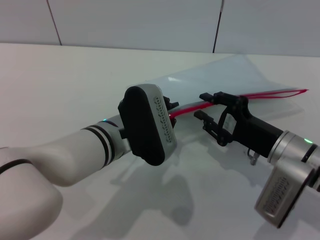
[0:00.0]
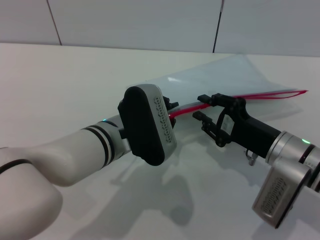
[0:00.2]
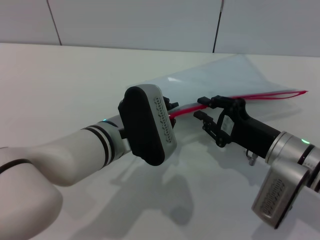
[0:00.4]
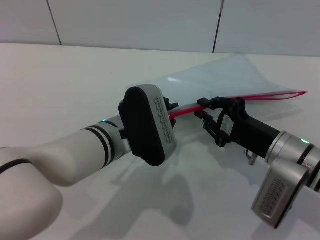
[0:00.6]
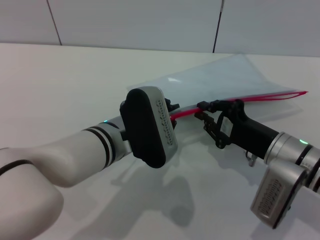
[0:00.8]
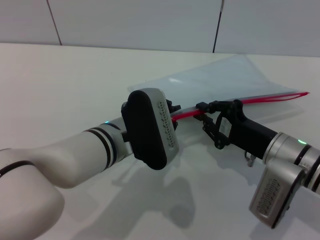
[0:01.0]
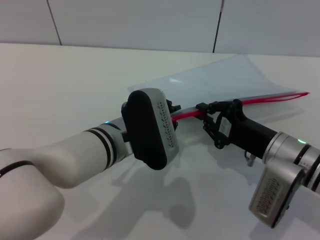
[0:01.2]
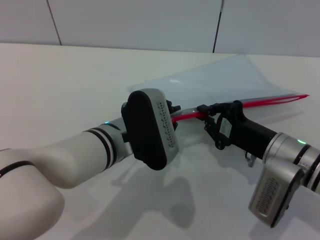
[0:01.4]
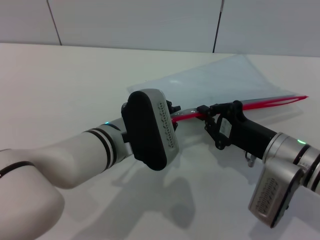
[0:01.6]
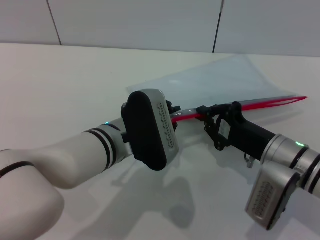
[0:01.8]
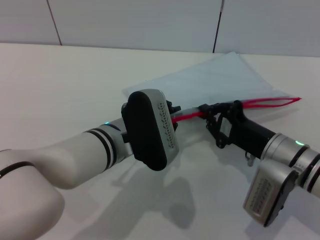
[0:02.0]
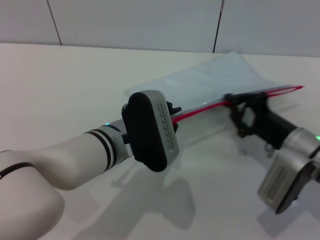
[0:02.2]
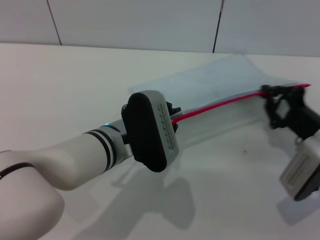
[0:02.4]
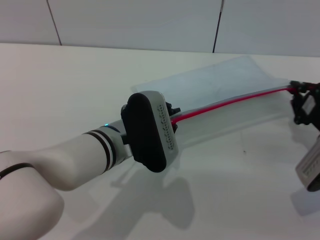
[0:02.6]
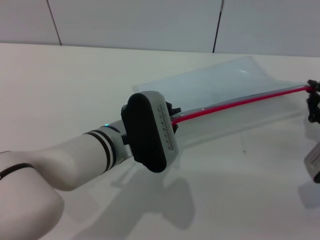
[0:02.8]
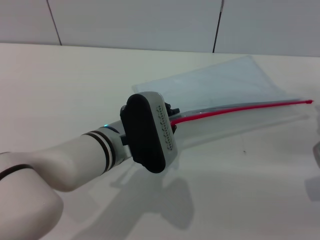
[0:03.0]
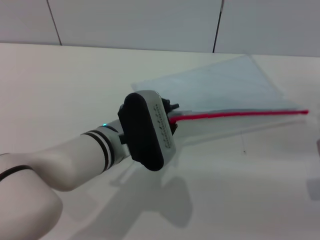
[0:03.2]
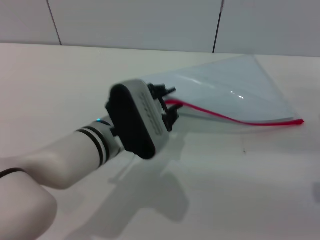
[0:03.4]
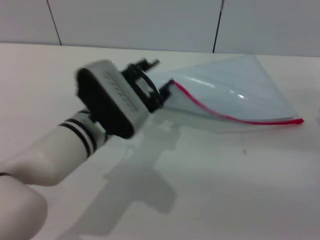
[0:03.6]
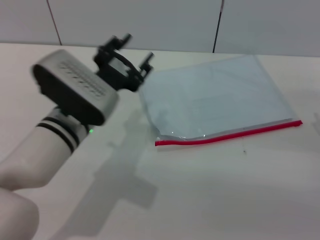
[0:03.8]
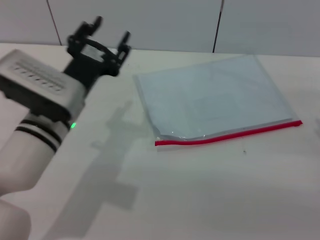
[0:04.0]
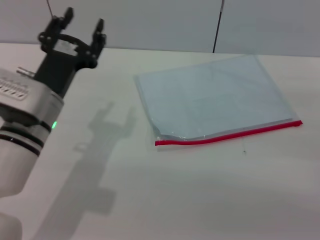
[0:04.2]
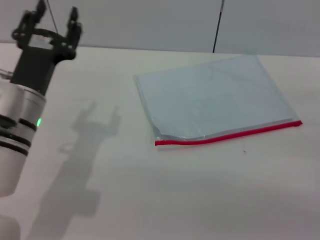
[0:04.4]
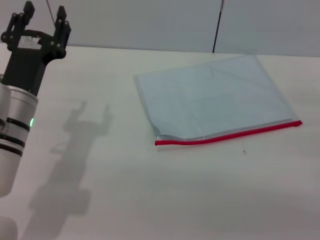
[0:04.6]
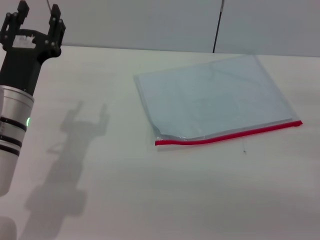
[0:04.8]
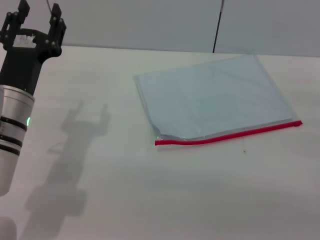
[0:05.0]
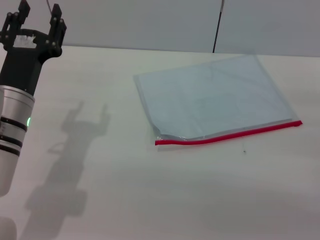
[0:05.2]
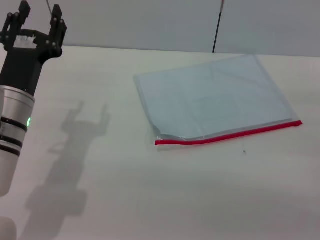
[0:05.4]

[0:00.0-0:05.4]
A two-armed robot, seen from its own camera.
Step, 0:00.0 to 0:02.8: Pulling up the zipper on the transparent plastic bag with the right gripper to close it.
Step, 0:03.0 to 0:04.0: Place the transparent plastic bag.
0:00.0 to 0:01.4: The right gripper closes its fingers.
0:01.4 to 0:02.8: The right gripper goes about 10 cm to the right.
0:02.8 to 0:04.0: The left gripper moves to the left, some 5 cm, and opens its fingers. Meanwhile the right gripper changes place by approximately 5 cm, and opens.
0:04.0 to 0:05.4: The left gripper is displaced to the left by about 5 cm.

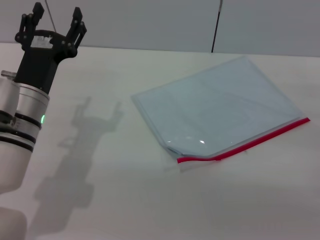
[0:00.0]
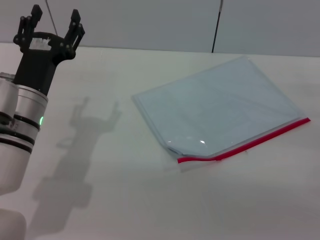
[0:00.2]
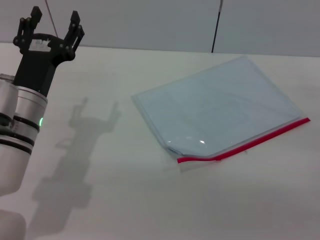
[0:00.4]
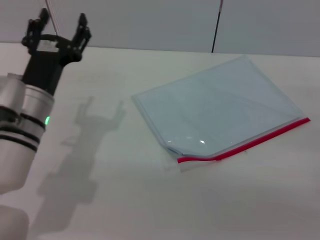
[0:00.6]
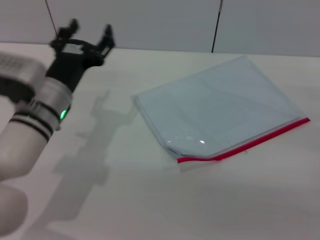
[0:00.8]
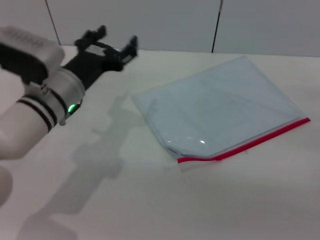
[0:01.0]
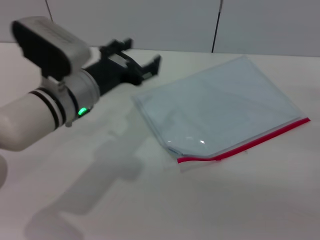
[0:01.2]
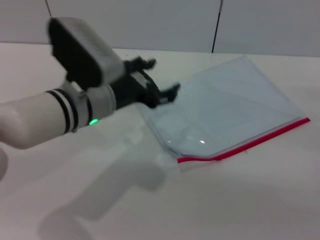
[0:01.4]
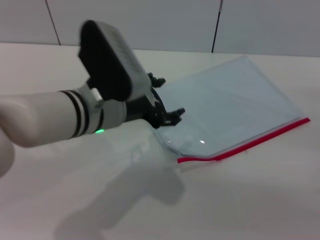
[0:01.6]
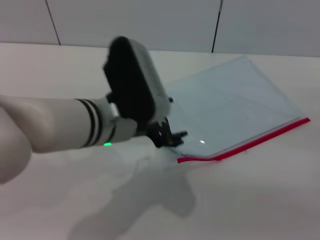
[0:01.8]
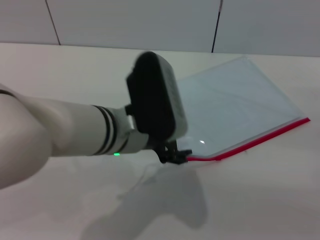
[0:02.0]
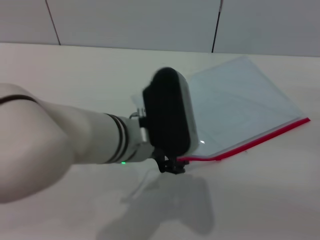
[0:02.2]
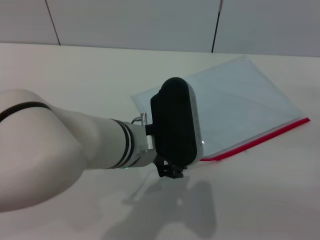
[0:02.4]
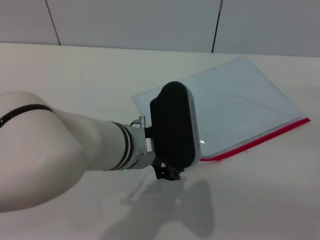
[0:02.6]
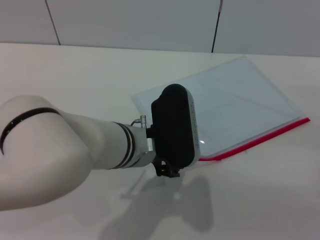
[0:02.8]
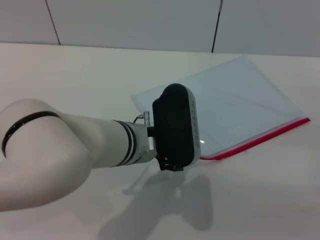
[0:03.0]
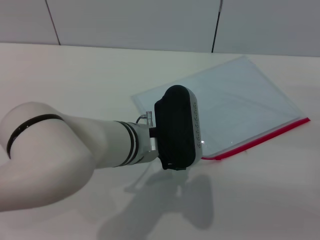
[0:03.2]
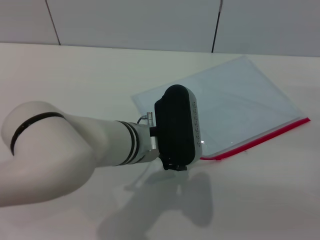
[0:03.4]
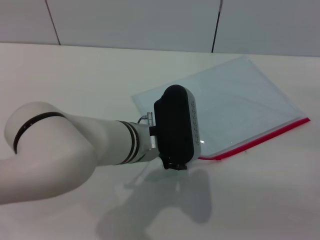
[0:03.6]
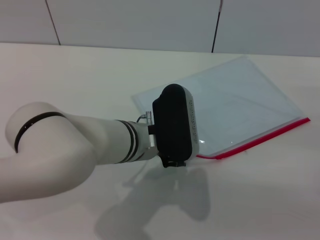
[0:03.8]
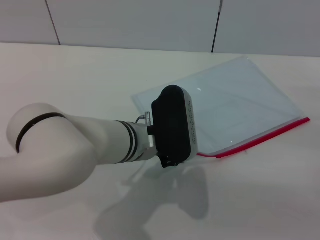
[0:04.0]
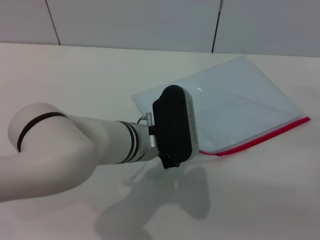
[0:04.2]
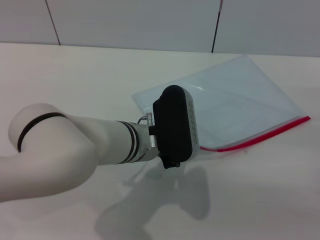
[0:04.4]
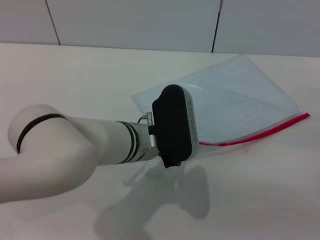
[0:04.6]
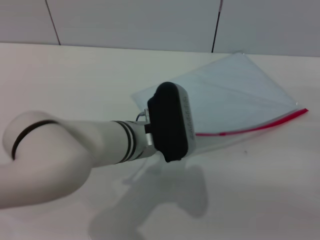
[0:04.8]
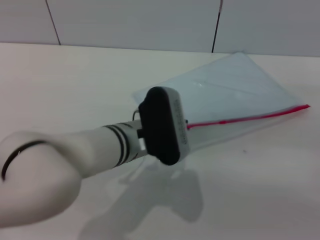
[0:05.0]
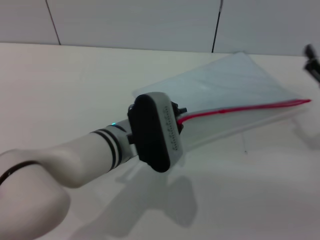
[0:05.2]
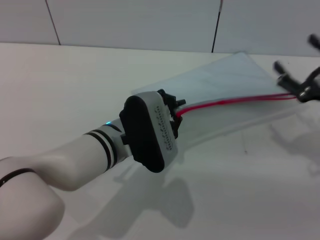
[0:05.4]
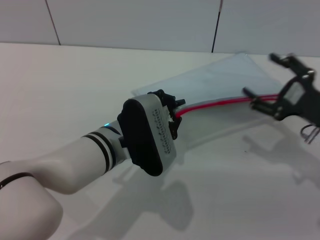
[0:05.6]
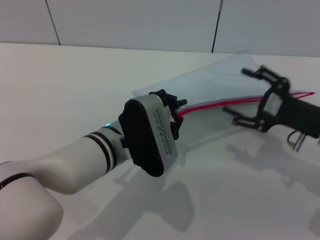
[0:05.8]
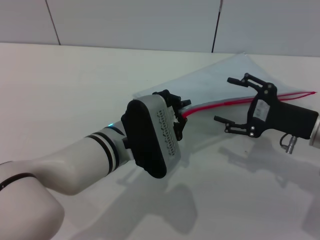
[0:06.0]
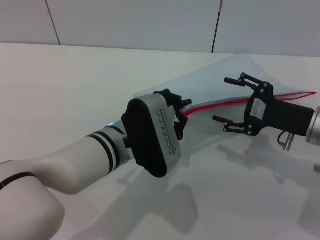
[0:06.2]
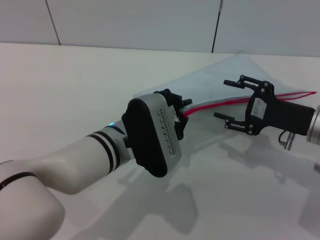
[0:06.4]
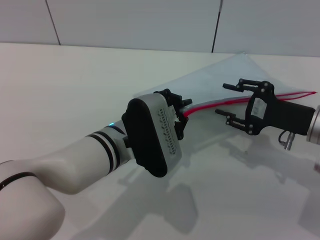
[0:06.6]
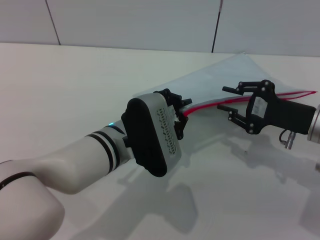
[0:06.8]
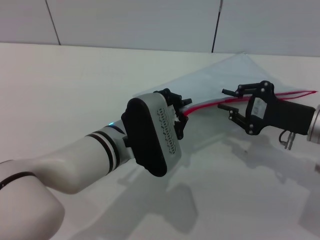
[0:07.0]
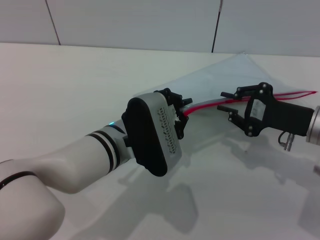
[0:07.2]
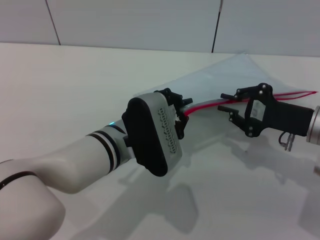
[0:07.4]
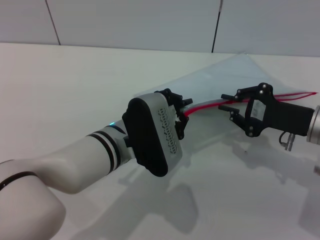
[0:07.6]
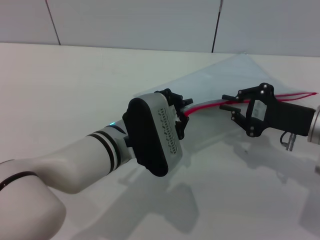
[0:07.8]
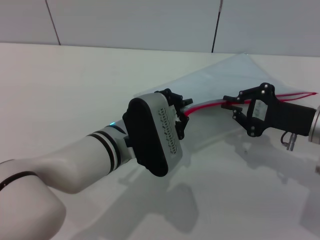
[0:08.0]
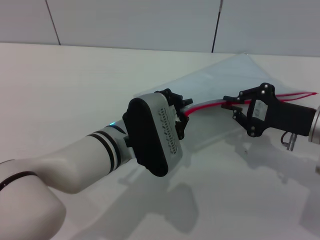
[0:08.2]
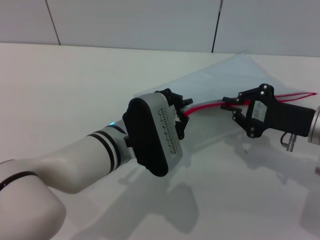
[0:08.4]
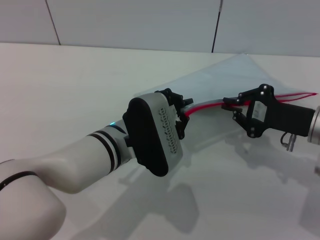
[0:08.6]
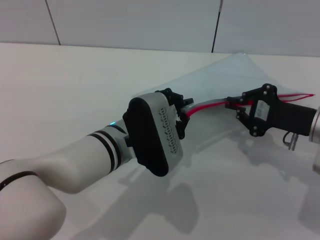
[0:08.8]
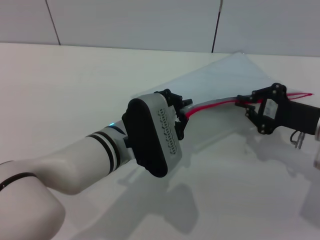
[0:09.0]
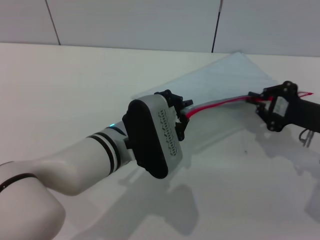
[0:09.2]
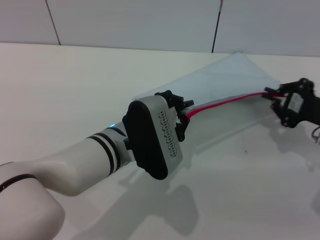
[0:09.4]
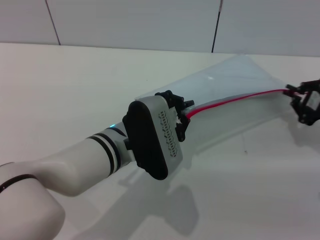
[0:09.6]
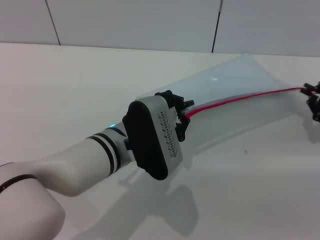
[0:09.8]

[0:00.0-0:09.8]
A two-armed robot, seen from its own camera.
Step, 0:00.0 to 0:05.6: Pick up the transparent plastic bag with the left gripper.
0:00.0 to 0:01.4: The left gripper travels to the right by some 5 cm.
0:01.4 to 0:02.8: The left gripper goes about 5 cm to the right.
0:02.8 to 0:04.2: There are only small adjustments of the grippers.
0:04.2 to 0:05.6: The left gripper closes up. Meanwhile the right gripper goes approximately 5 cm to the left.
0:05.6 to 0:07.0: The right gripper closes up.
0:07.0 to 0:08.4: Both grippers stay put.
0:08.4 to 0:09.8: The right gripper shifts some 10 cm to the right.

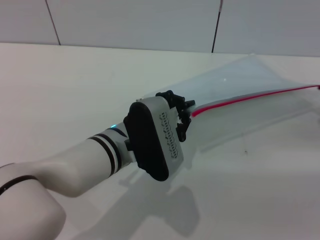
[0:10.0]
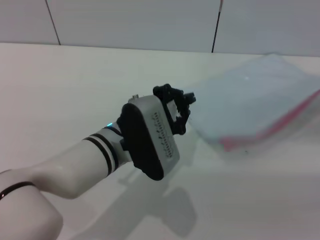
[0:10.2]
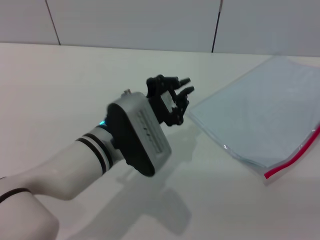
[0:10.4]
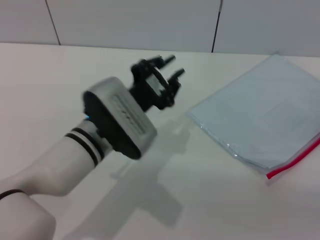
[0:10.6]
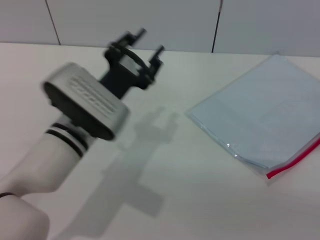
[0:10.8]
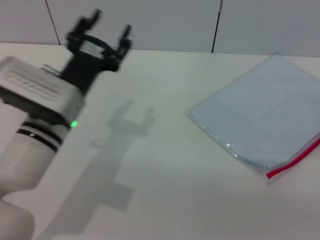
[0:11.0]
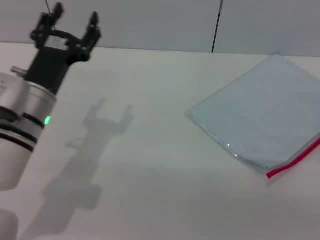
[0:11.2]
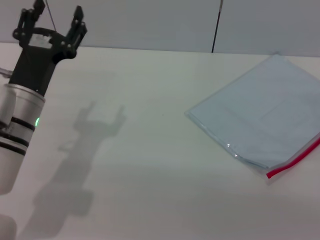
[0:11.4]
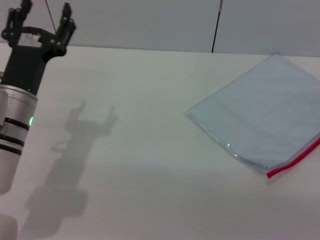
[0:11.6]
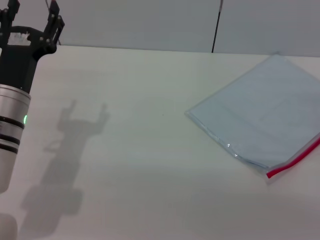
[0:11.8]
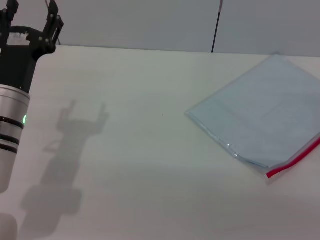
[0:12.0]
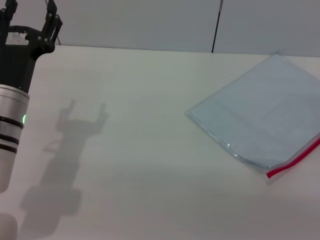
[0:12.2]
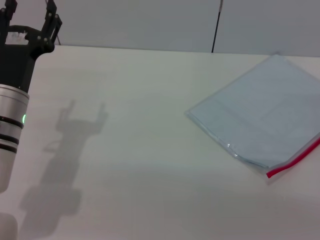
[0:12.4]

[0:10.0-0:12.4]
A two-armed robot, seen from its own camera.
Step, 0:10.2 to 0:10.4: Place the transparent plastic bag.
0:10.0 to 0:11.2: The left gripper travels to the left by some 10 cm, and opens; the right gripper heads backward, covering about 10 cm, and opens.
0:11.2 to 0:12.4: The grippers make only small movements.
